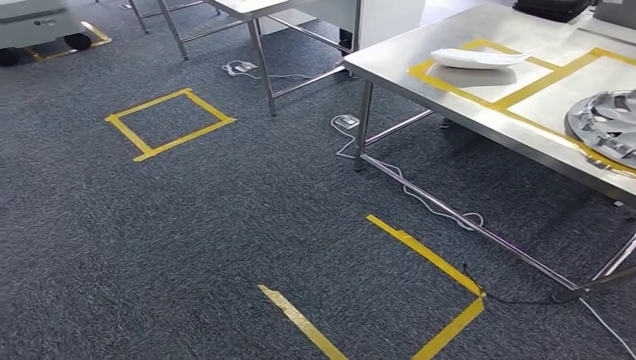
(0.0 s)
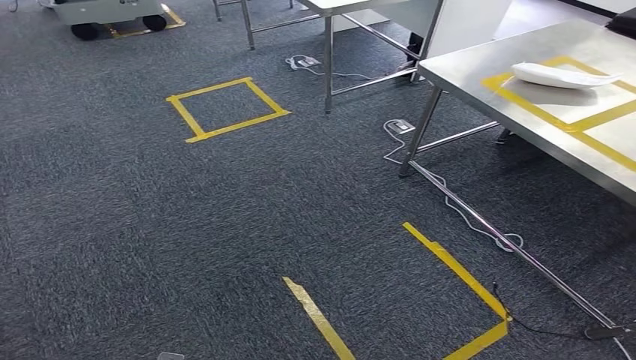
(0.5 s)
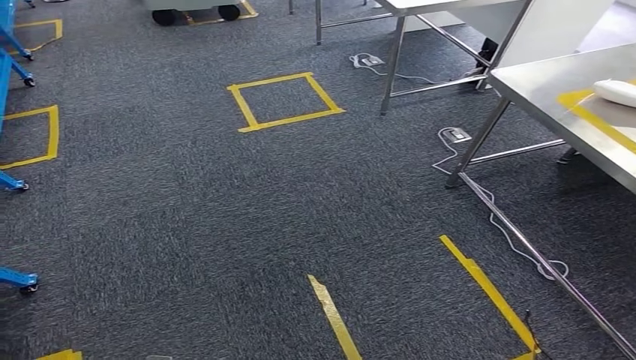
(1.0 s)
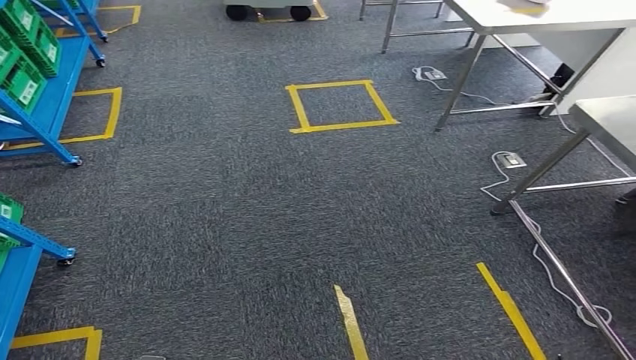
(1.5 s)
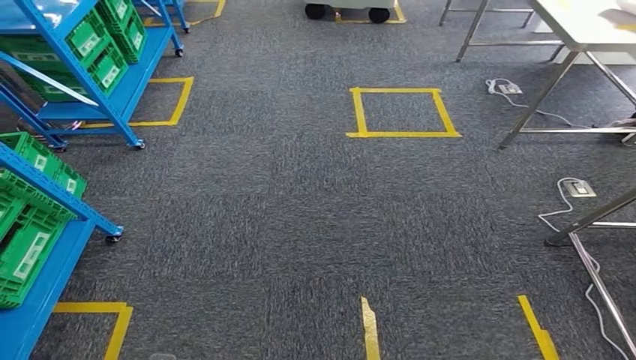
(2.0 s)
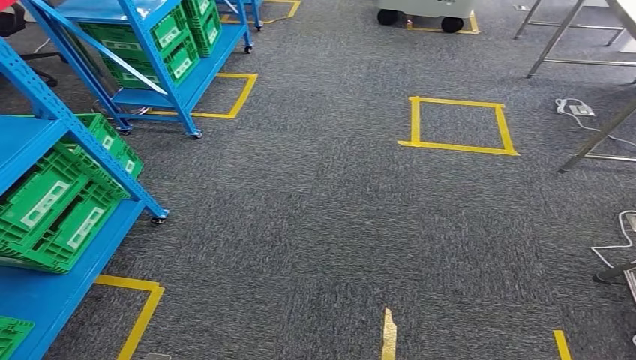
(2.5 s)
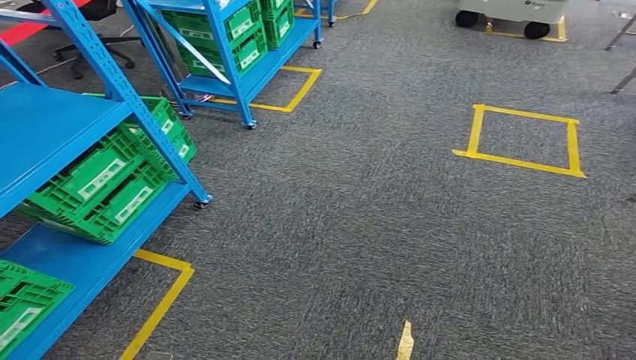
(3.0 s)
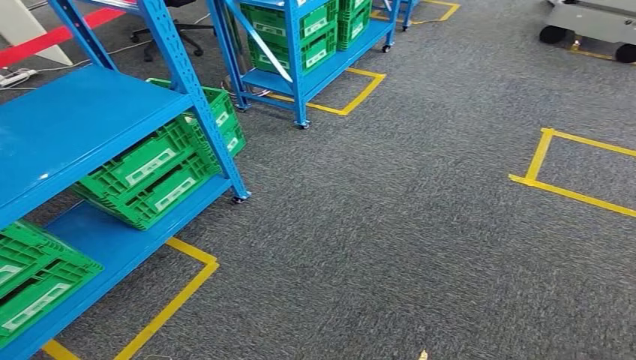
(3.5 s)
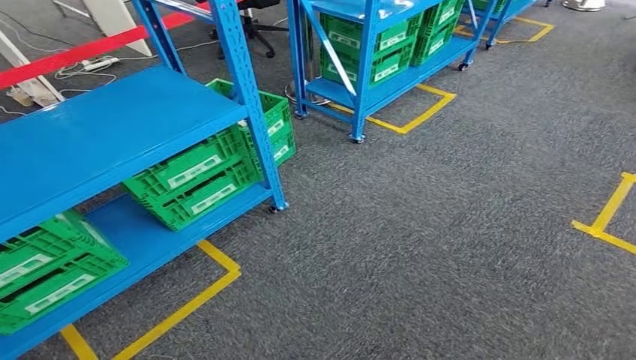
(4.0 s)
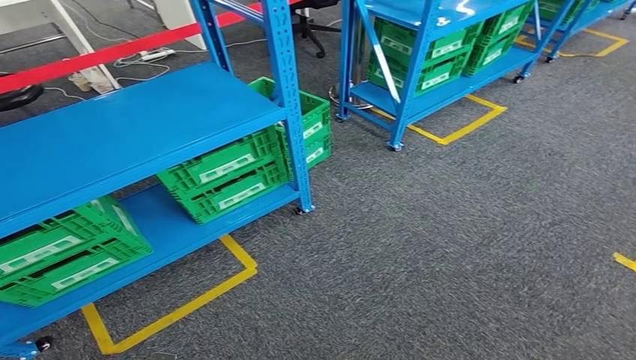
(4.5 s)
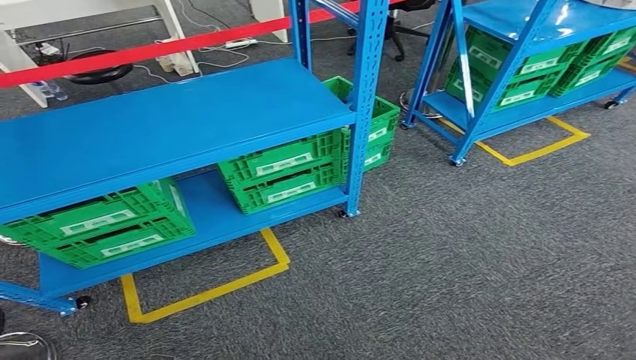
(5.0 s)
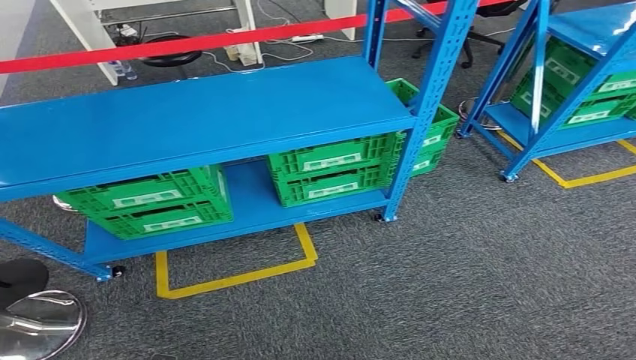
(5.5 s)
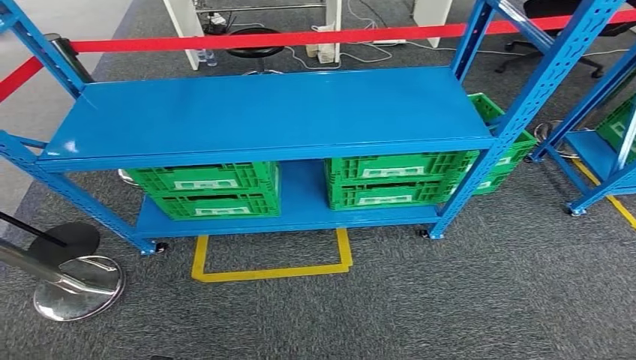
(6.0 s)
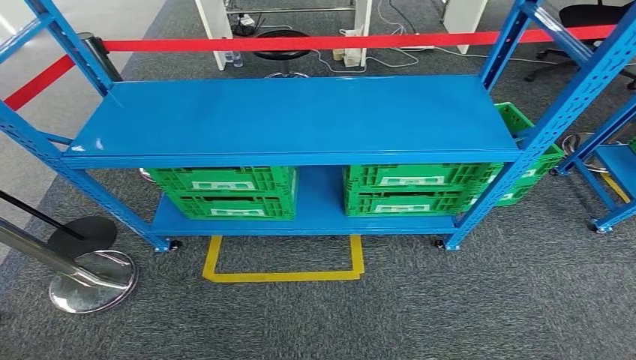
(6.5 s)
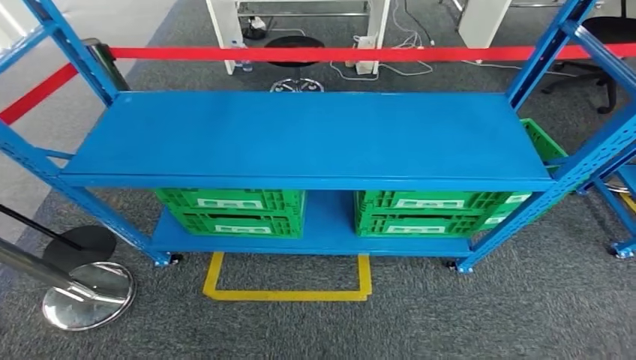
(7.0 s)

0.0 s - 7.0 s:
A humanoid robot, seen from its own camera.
Step, 0.0 s - 6.5 s: Return to the initial position at the workbench.
